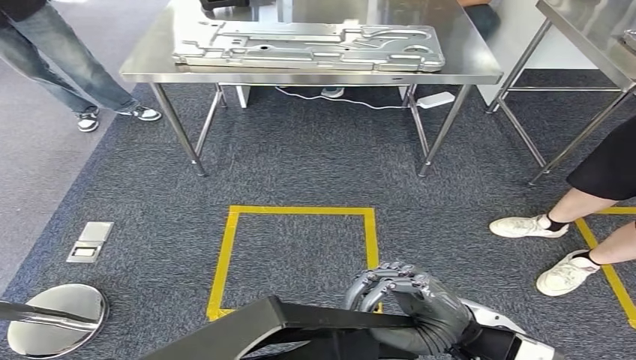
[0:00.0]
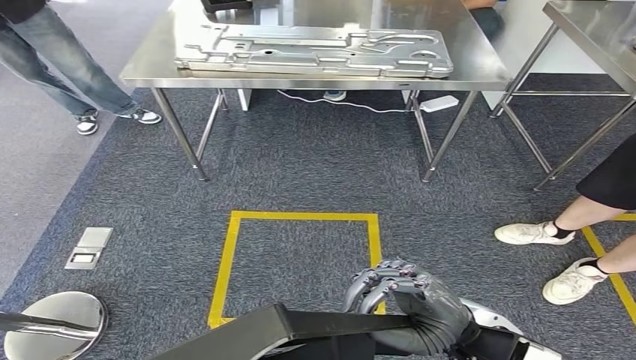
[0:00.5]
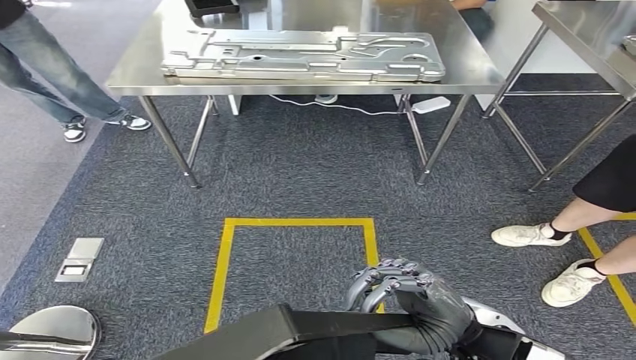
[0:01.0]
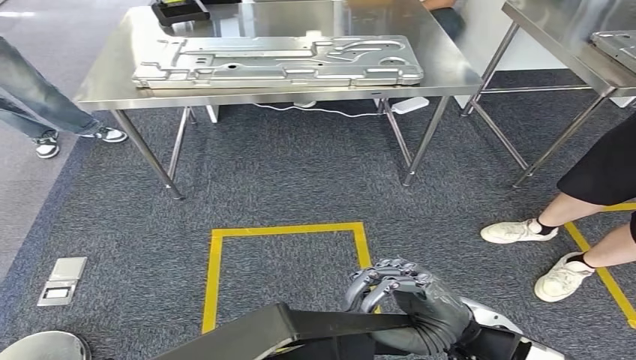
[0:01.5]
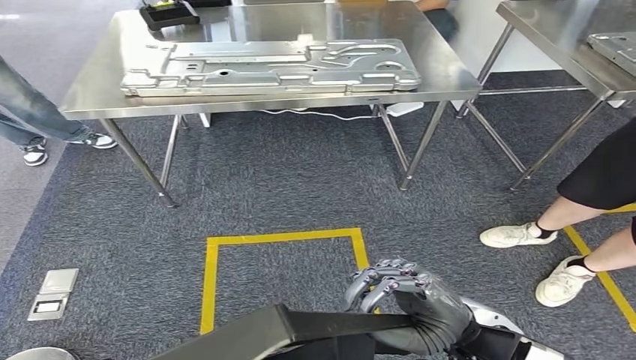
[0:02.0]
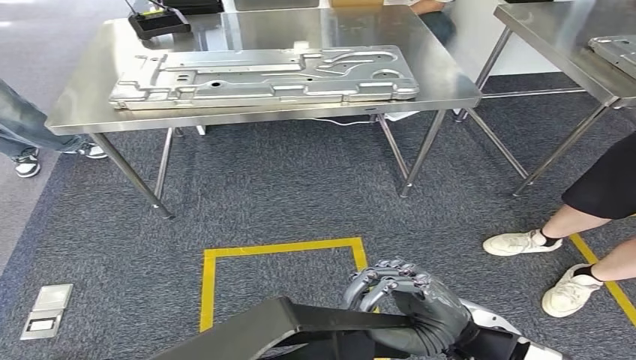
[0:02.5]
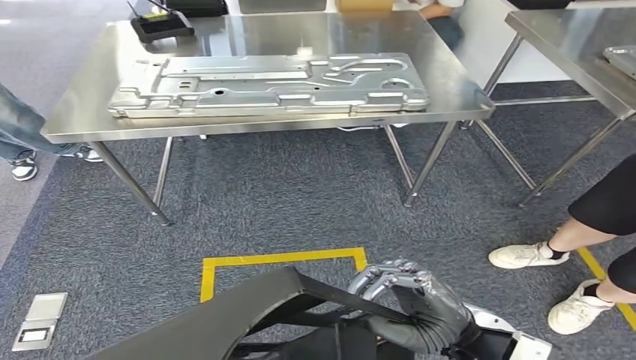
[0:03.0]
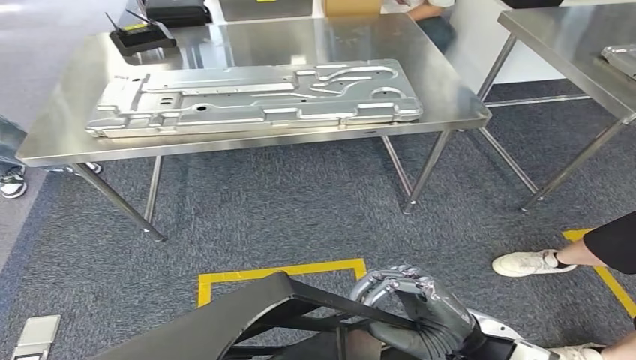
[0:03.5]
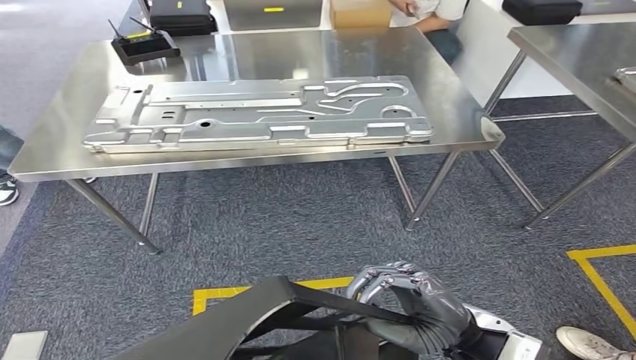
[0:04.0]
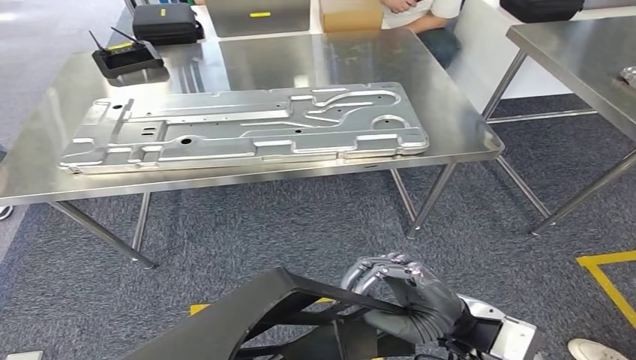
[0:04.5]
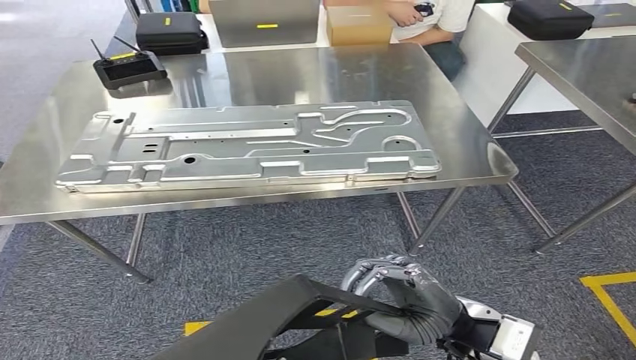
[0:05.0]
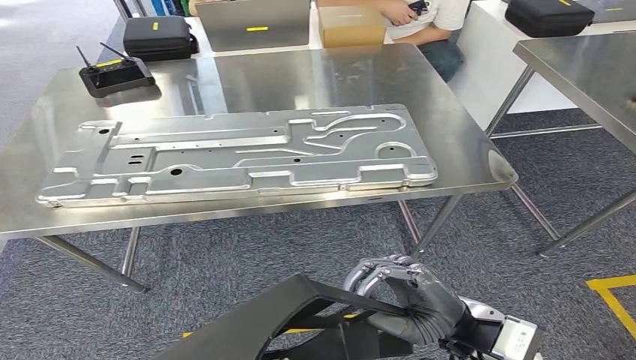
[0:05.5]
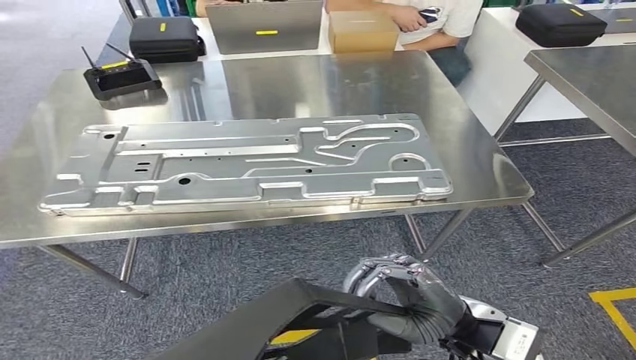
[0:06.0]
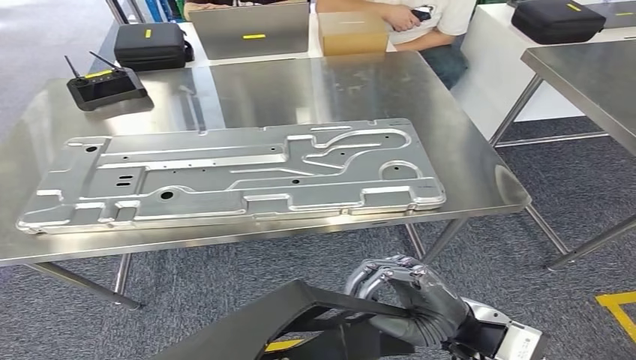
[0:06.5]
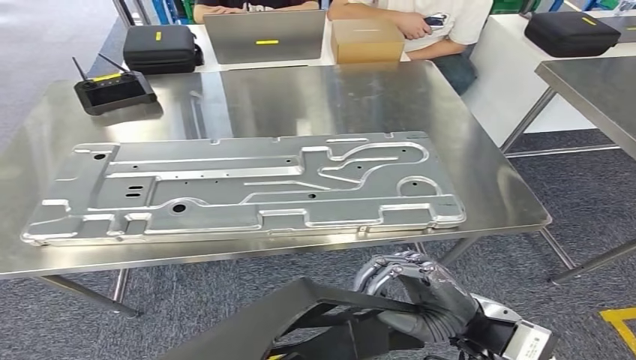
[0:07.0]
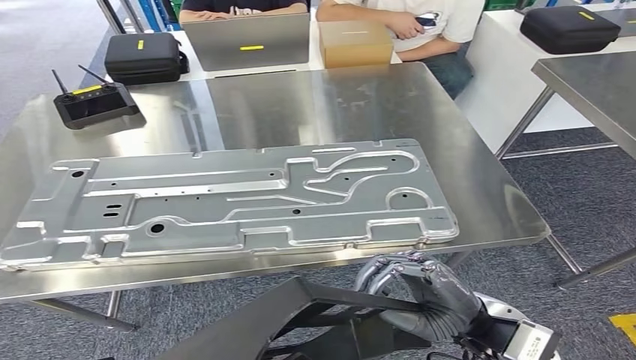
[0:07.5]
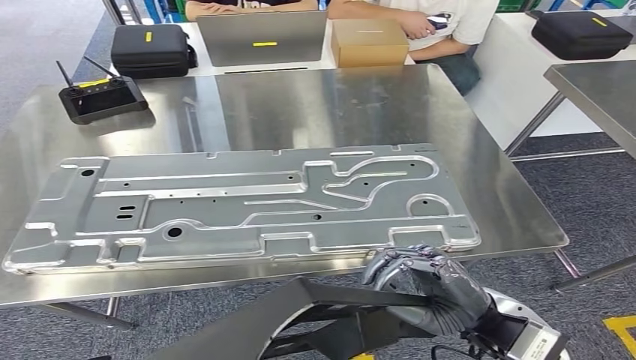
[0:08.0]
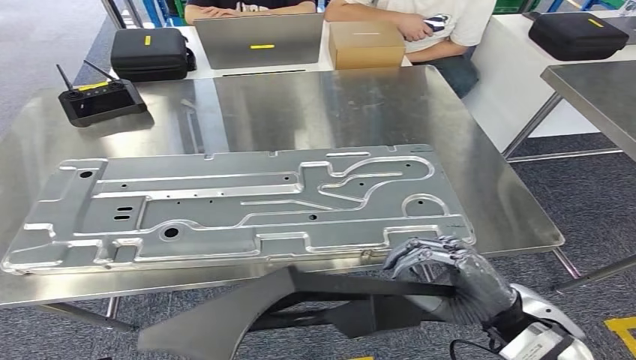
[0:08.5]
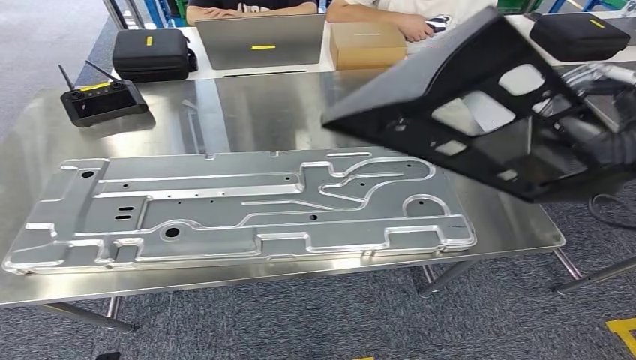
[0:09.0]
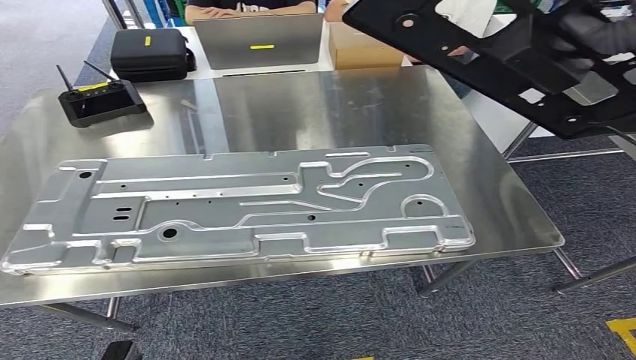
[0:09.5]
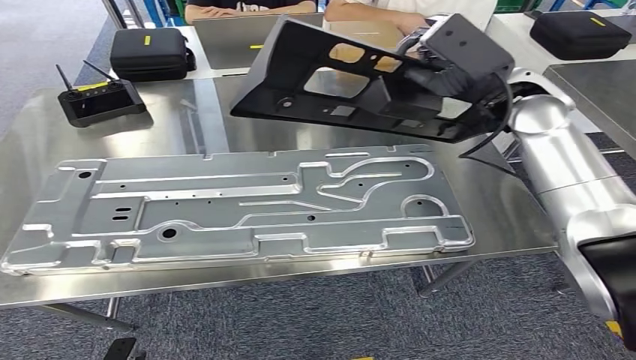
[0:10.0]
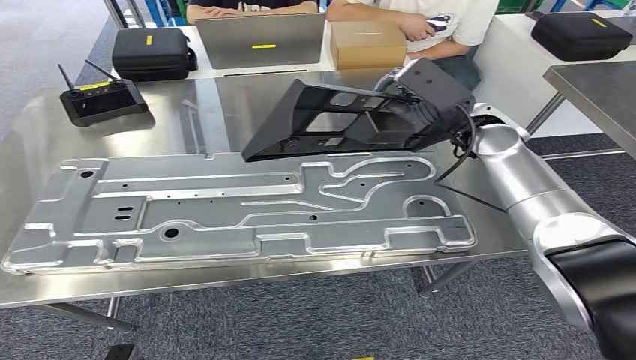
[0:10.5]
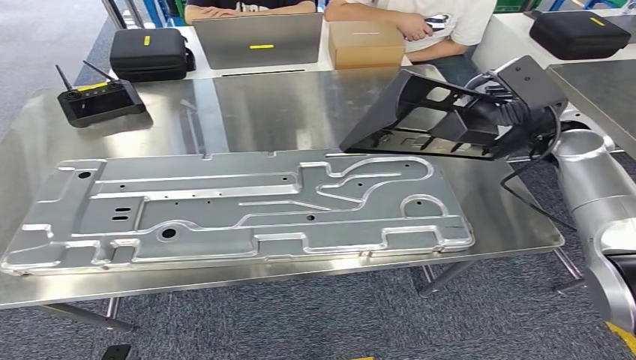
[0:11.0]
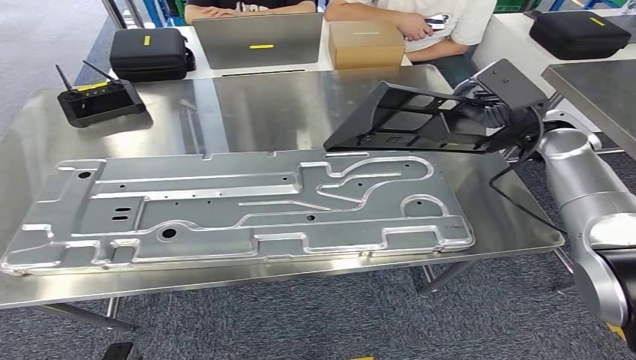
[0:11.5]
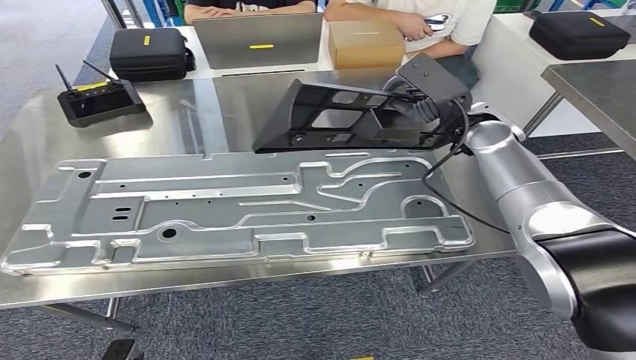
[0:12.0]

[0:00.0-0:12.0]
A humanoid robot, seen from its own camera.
Step, 0:00.0 to 0:07.5: Move the large material to the workbench.

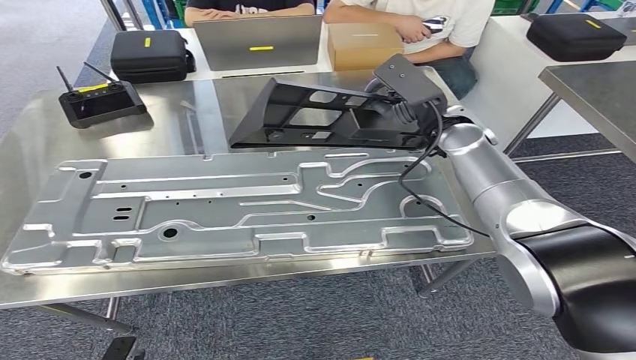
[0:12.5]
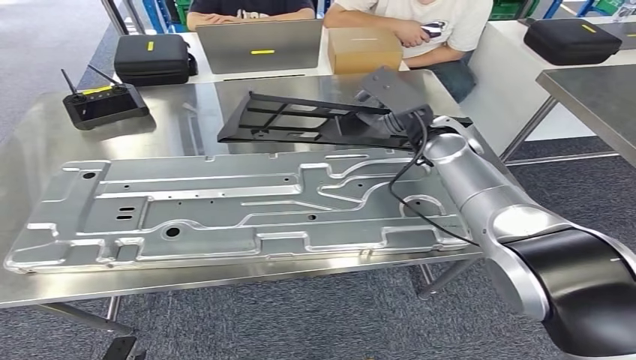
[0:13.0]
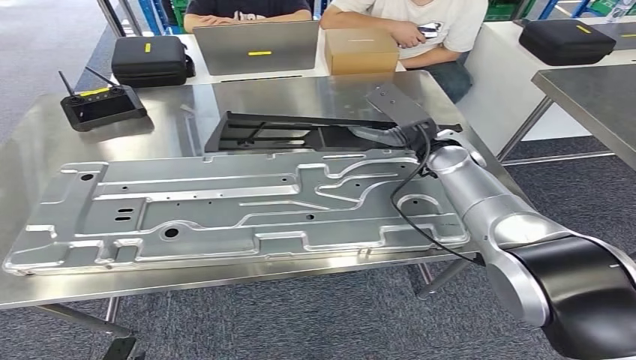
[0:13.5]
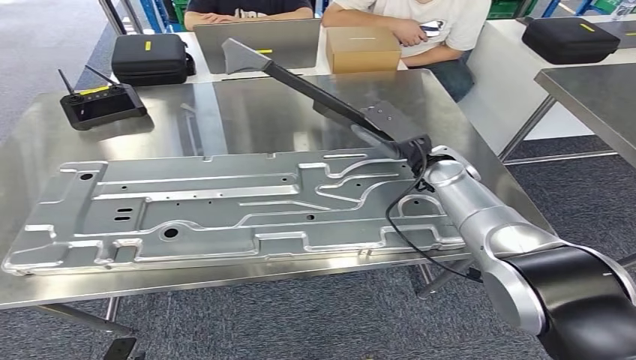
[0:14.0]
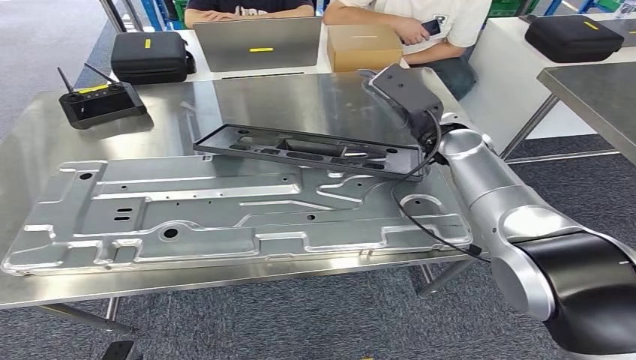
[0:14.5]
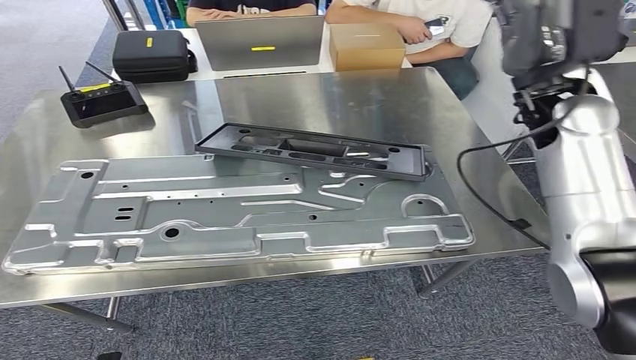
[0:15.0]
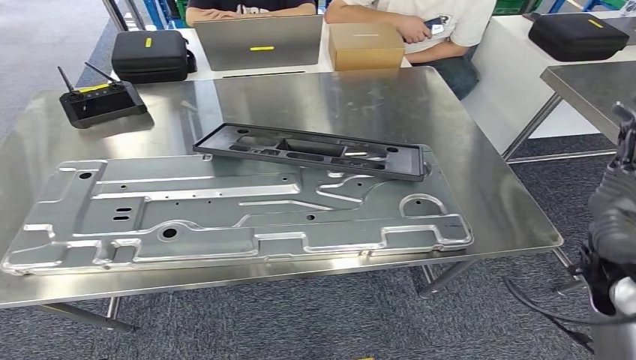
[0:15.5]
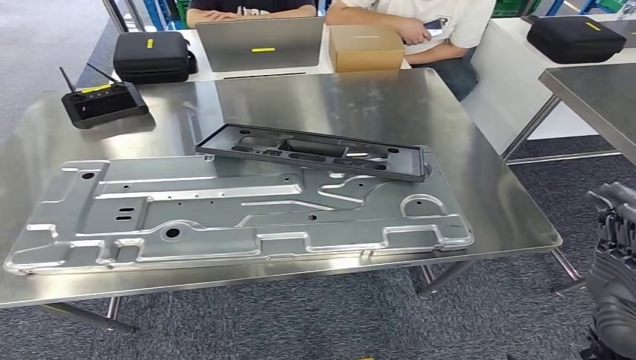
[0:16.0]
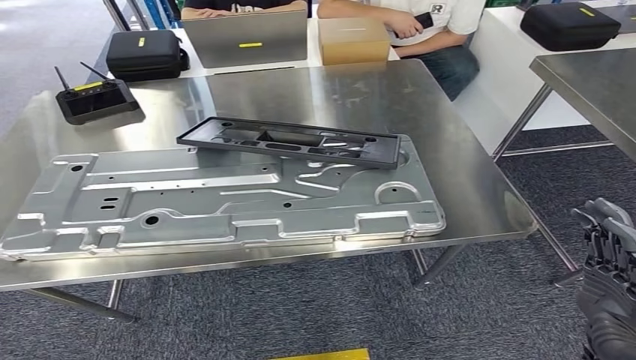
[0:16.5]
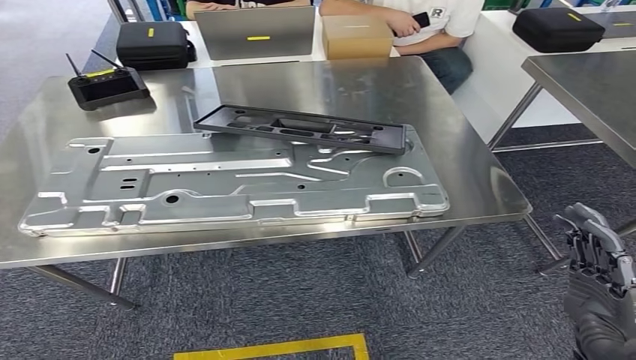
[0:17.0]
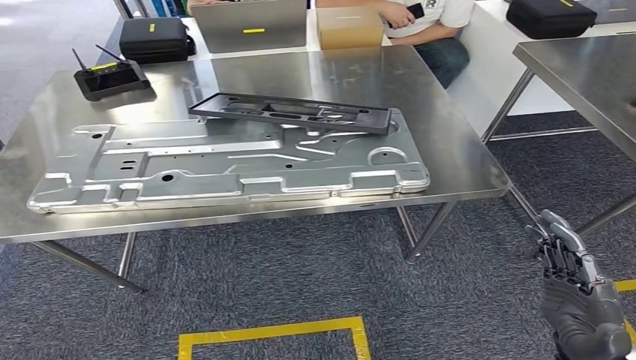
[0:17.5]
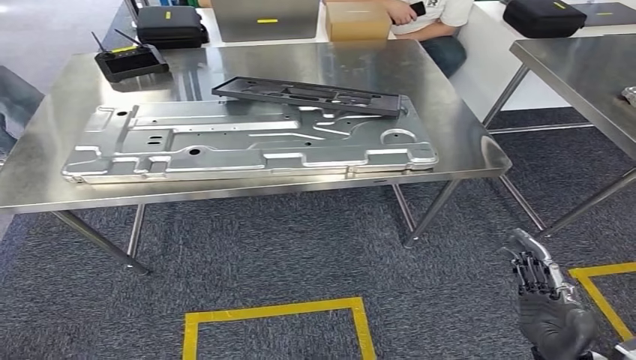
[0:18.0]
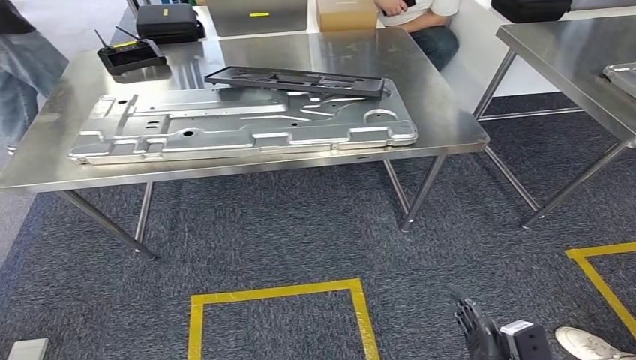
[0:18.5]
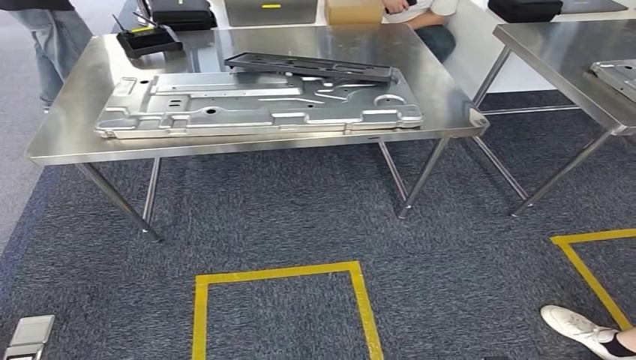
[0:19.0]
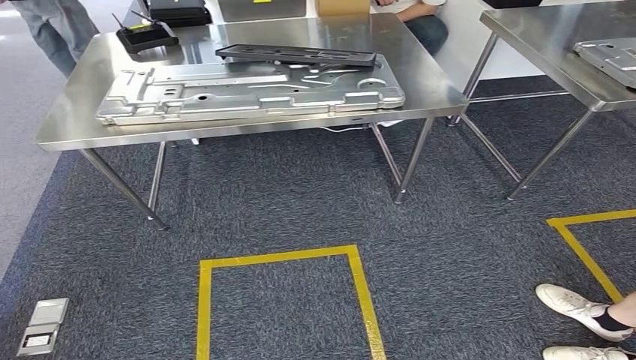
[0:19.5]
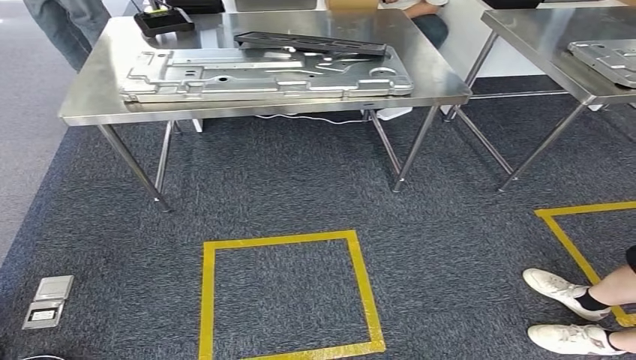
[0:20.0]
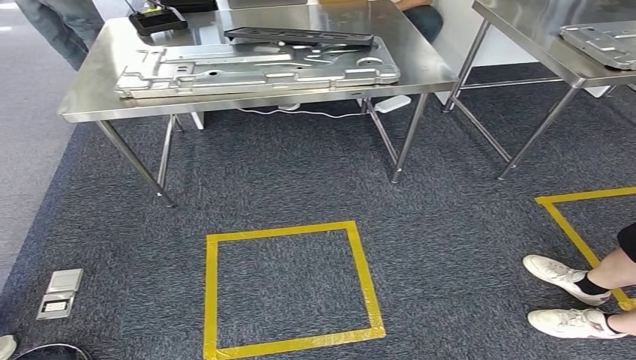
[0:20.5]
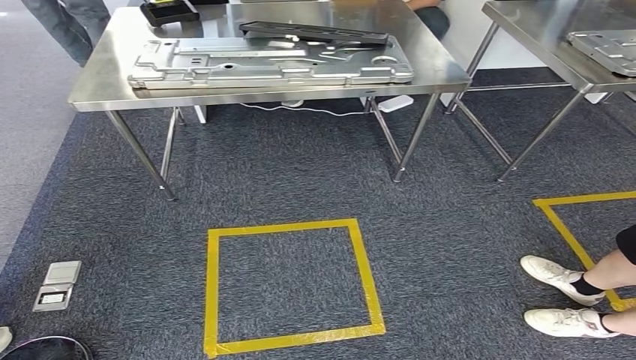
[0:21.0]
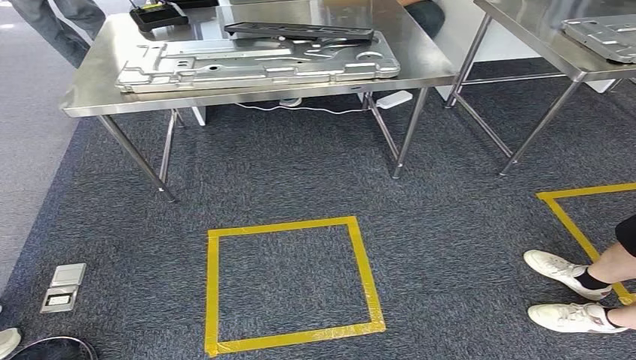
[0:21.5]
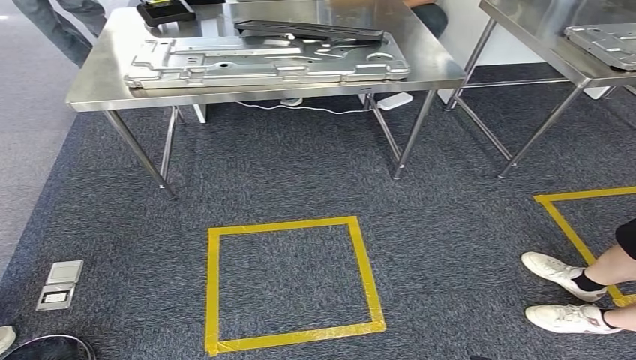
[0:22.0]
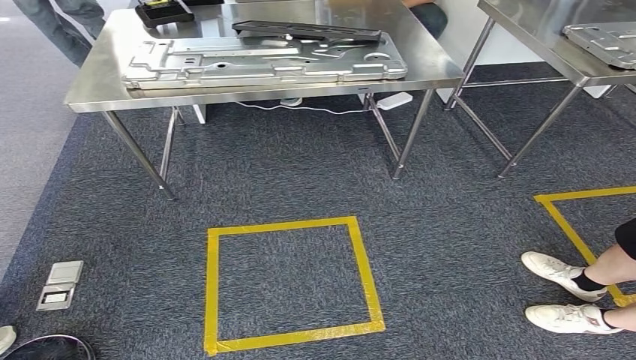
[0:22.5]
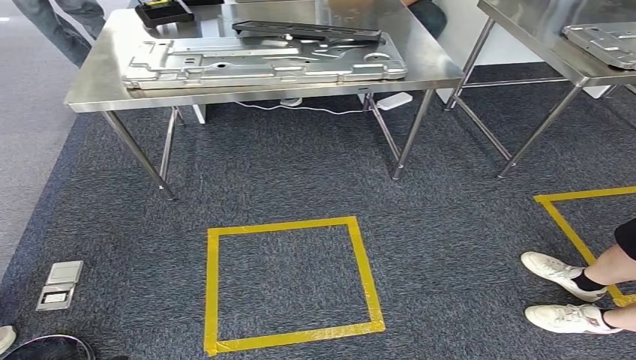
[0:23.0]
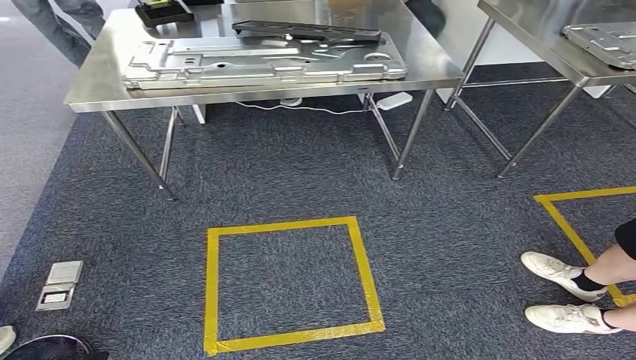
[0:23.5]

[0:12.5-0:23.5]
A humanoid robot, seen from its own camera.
Step, 0:12.5 to 0:16.5: Insert the large material into the corresponding slot on the workbench.
Step, 0:17.5 to 0:23.0: Move to the initial position of the shelf.
0:12.5 to 0:14.5: The right hand goes downward and returns, roughly 10 cm each way.
0:14.5 to 0:16.0: The right hand travels backward by approximately 35 cm.
0:21.5 to 0:23.5: The hands make only small movements.
